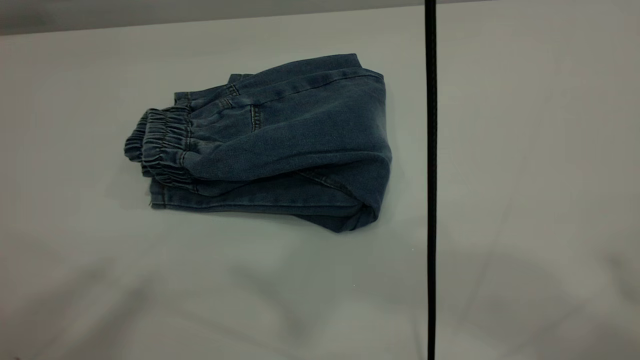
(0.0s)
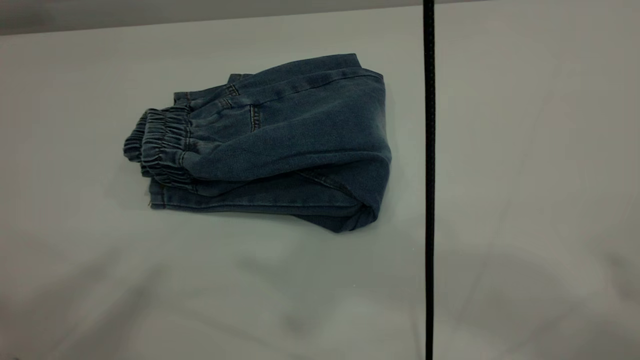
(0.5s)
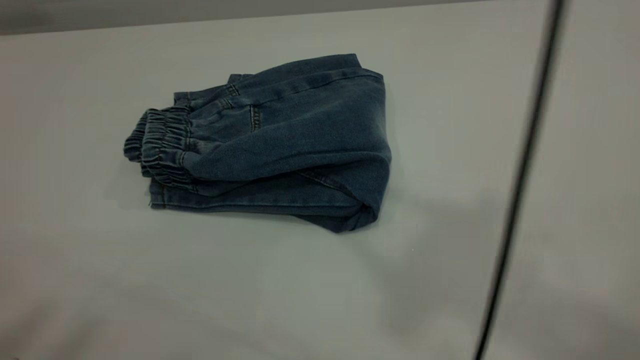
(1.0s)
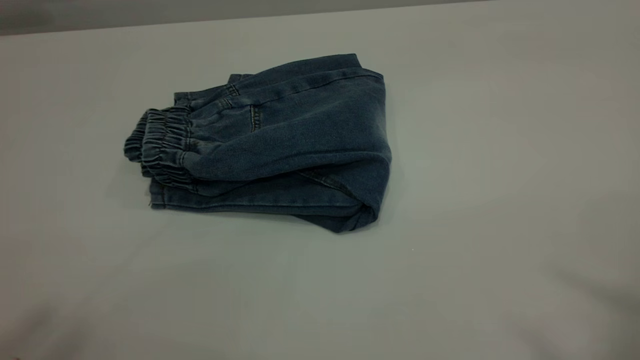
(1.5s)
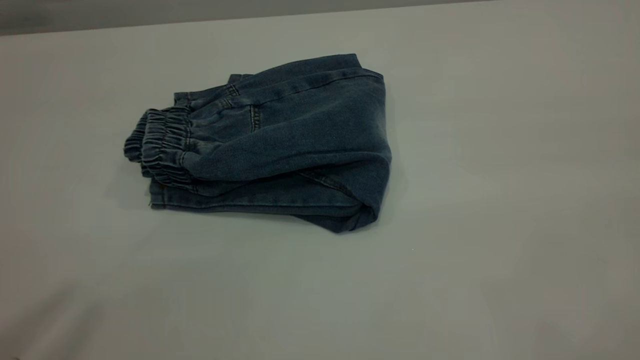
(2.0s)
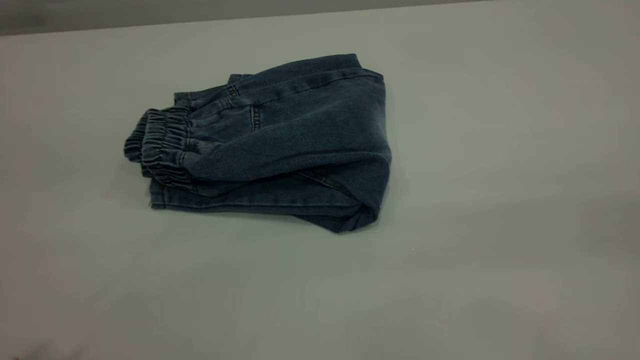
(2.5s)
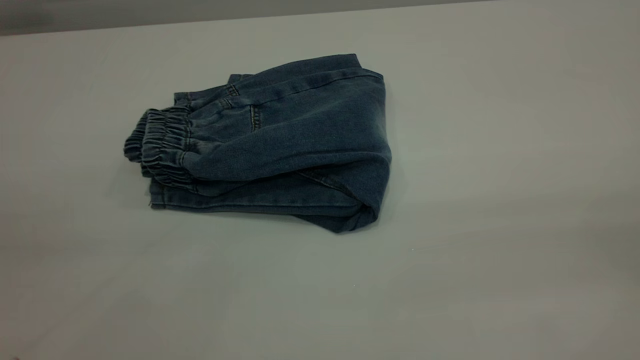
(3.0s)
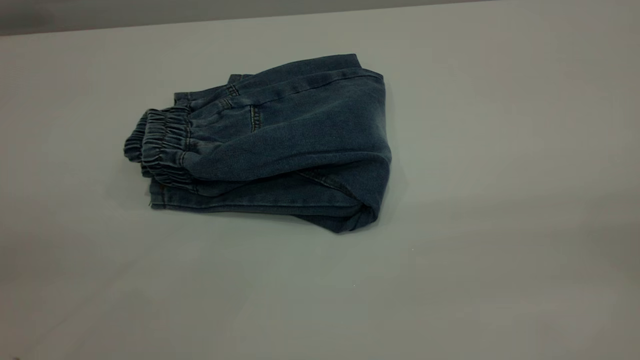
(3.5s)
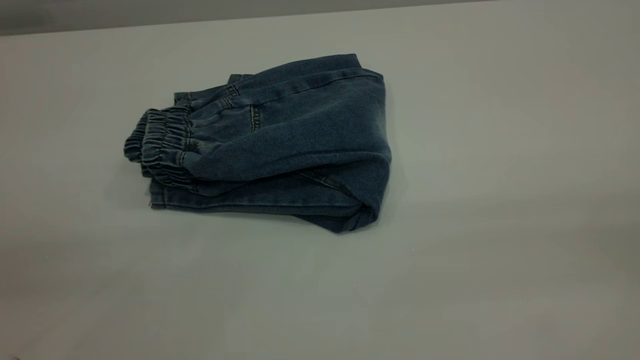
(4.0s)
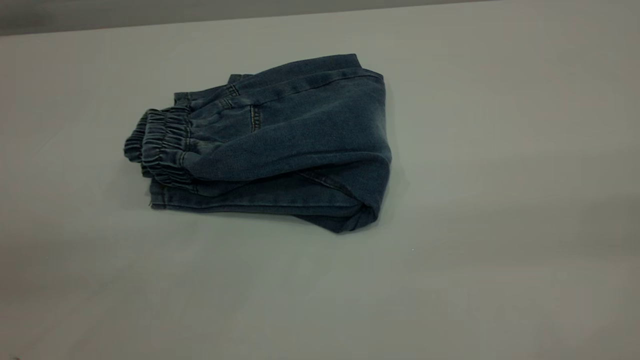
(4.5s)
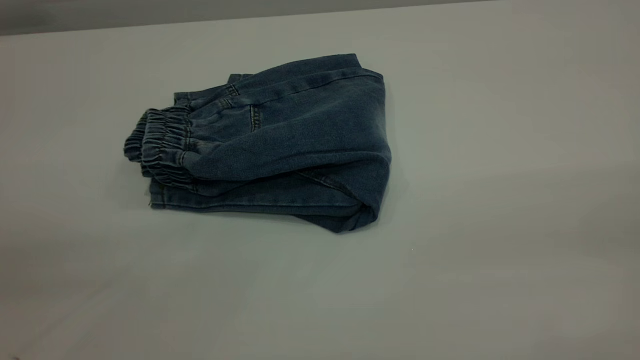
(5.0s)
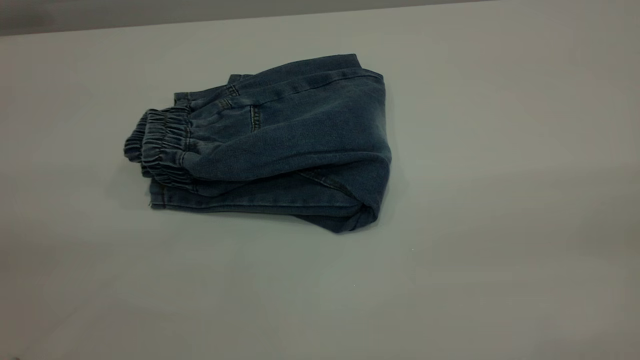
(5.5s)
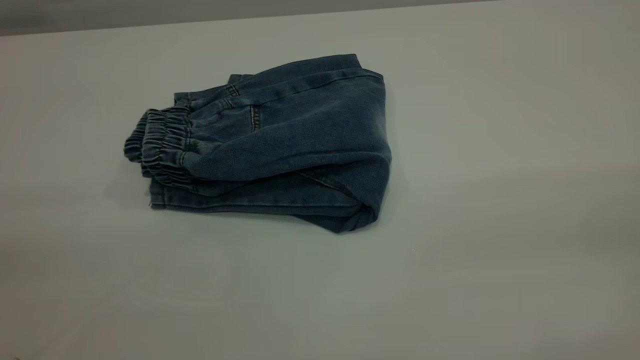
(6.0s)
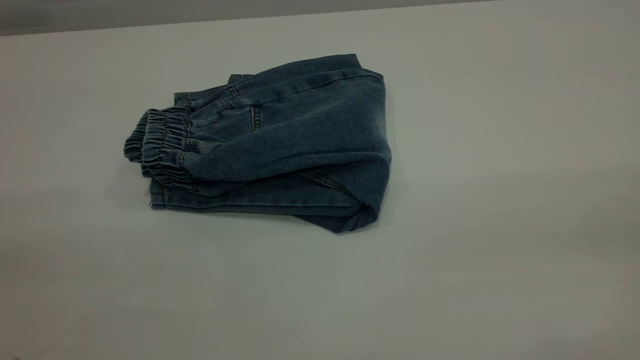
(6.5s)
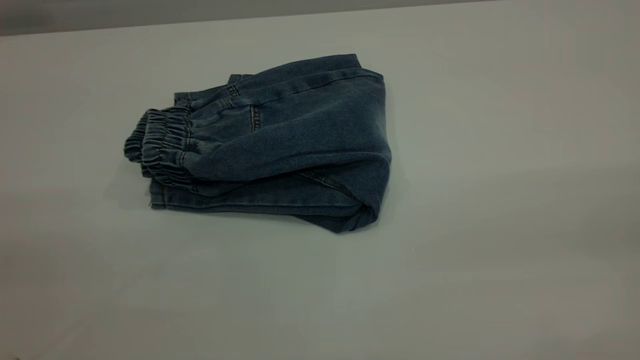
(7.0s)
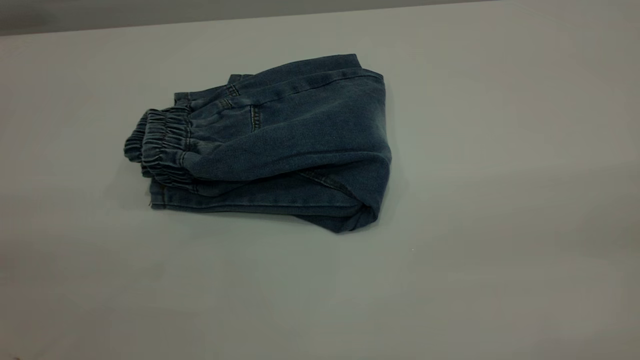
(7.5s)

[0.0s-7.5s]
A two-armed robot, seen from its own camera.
0.0s to 2.0s: The right gripper goes roughly 30 cm to the right, backward and downward.
